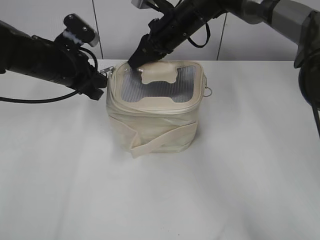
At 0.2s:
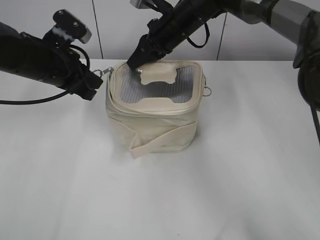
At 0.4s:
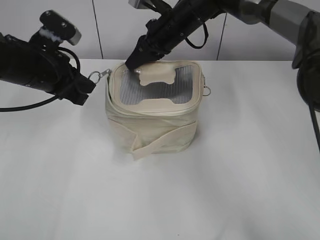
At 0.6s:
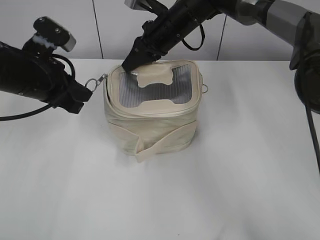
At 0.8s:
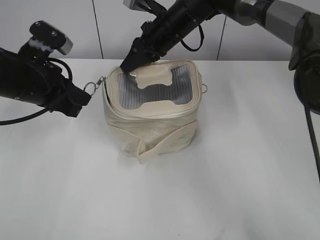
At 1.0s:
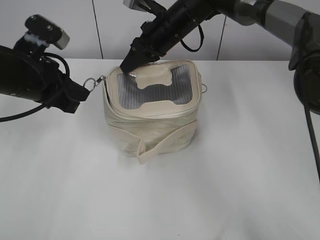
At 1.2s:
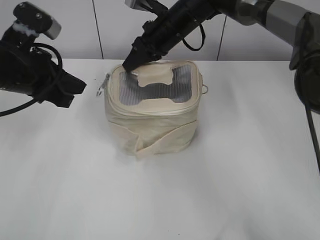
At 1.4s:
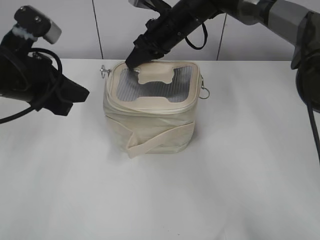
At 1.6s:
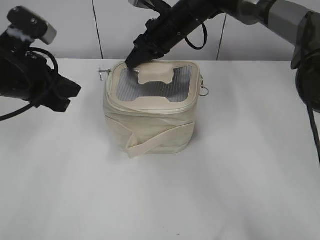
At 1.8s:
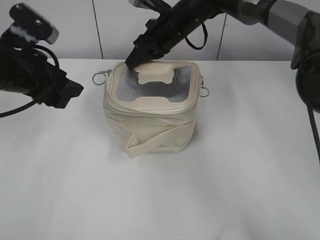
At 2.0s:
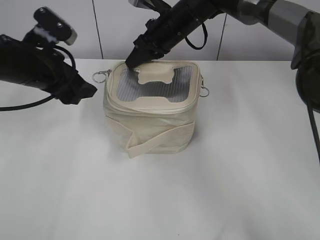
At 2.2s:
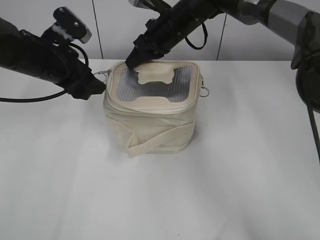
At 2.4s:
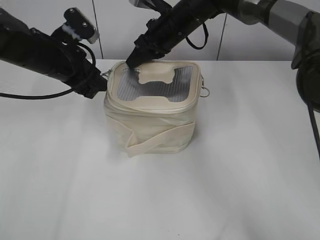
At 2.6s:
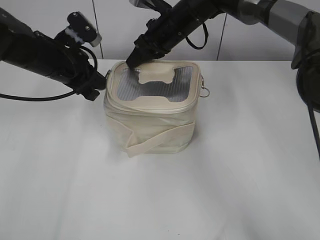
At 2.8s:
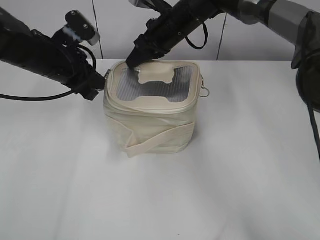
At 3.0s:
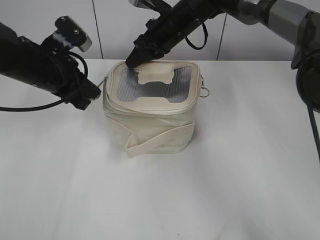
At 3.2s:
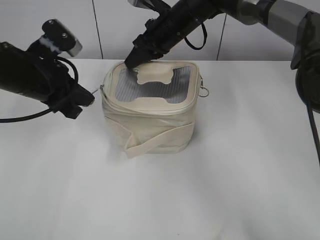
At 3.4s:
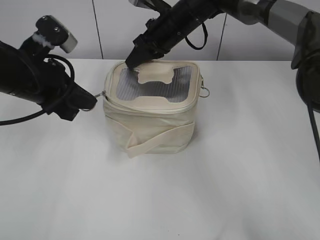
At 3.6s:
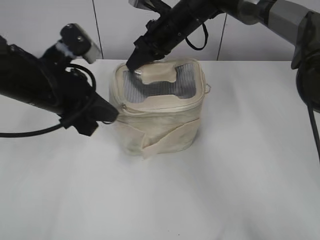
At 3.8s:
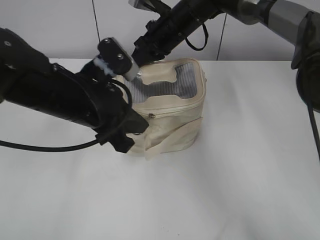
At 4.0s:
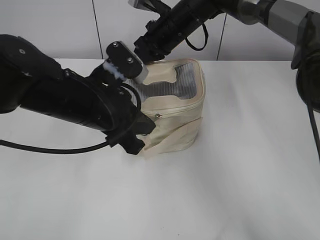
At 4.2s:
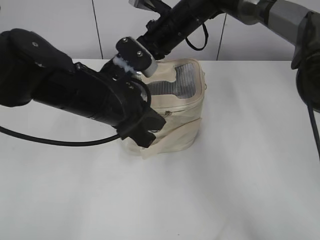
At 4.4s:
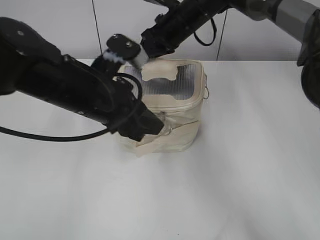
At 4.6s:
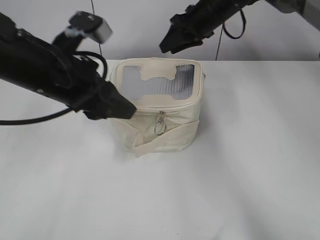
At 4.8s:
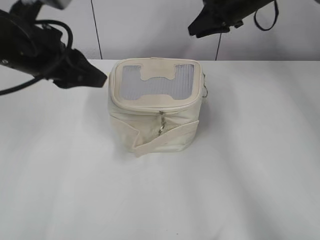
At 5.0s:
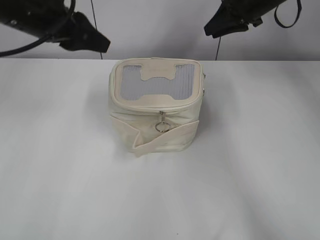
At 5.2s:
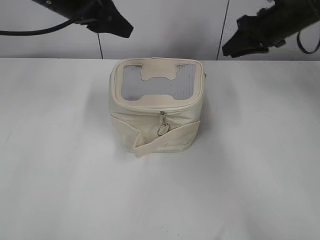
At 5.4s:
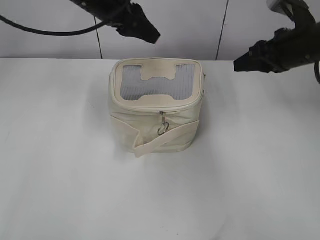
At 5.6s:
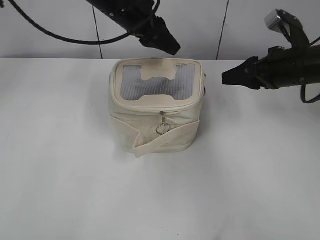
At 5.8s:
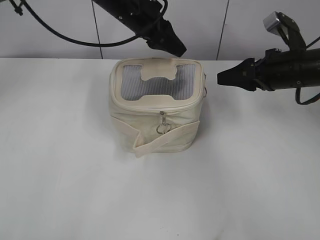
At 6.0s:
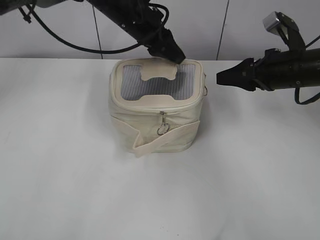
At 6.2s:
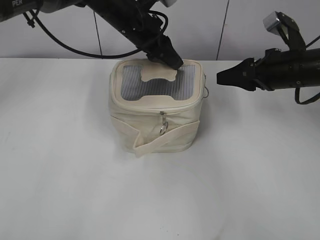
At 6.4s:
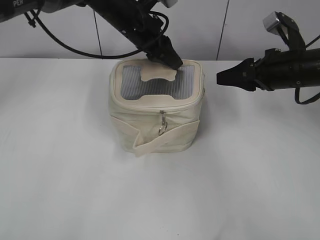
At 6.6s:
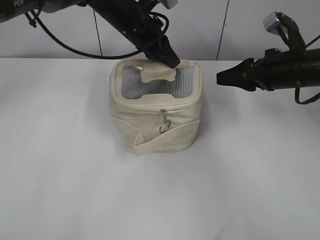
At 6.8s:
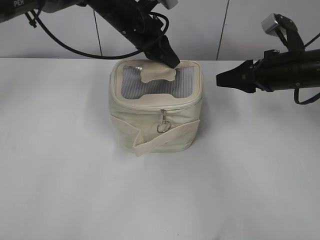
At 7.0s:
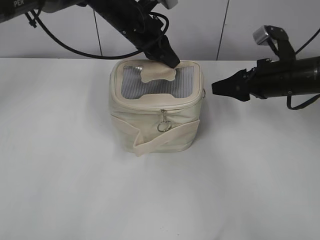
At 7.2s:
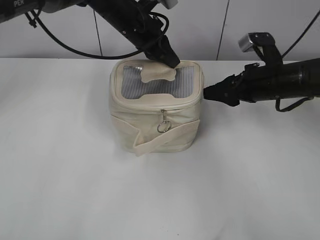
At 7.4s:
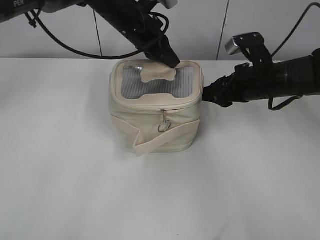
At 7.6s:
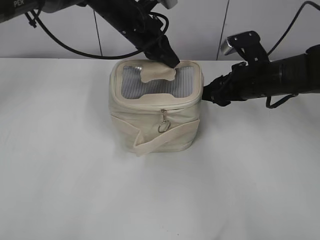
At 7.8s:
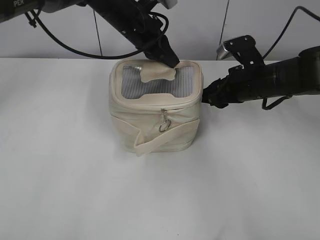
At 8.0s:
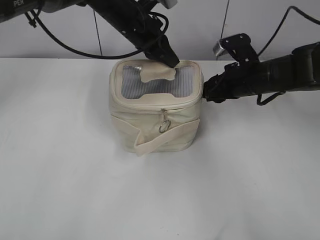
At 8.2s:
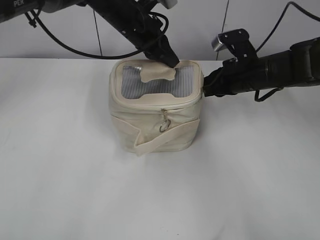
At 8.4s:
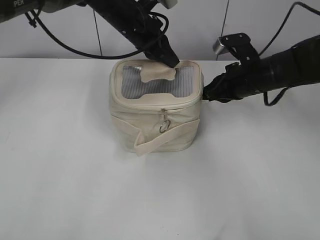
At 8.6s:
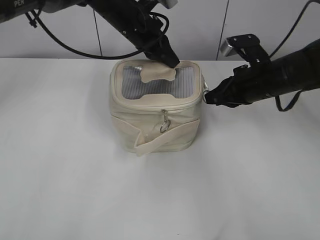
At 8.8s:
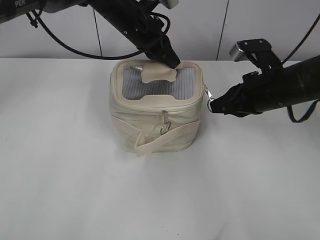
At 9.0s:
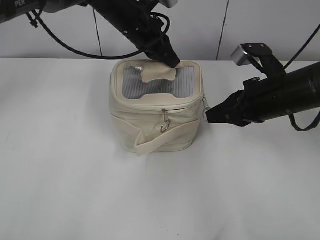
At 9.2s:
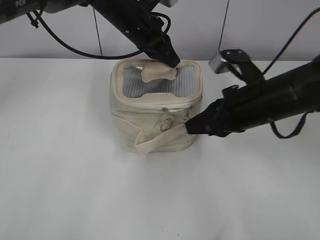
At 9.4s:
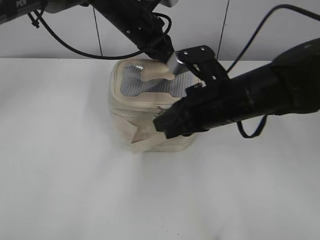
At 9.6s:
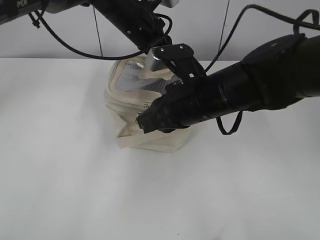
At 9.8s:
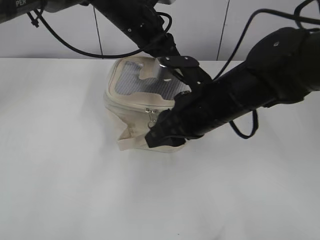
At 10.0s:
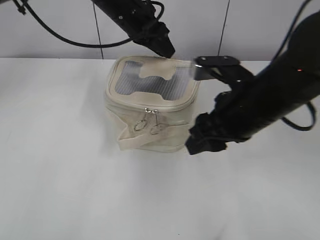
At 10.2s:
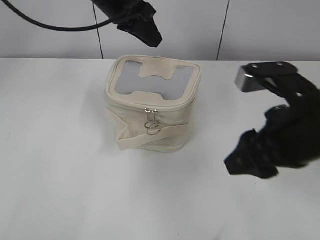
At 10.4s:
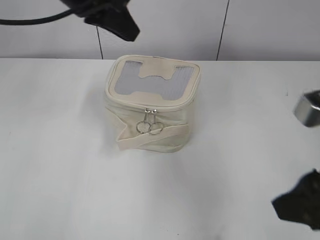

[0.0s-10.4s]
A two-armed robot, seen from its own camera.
Step, 0.0s to 4.2s: Zip up the bag with your left hand.
Step, 4.6s to 9.8s: Zip up the bag with your right hand.
0.0s to 1.4s: The left gripper goes approximately 10 cm backward and upward.
1.4s to 3.0s: The left gripper travels forward by some 5 cm, and opens and closes again.
3.0s to 4.4s: The left gripper heads to the right and backward, covering approximately 15 cm.
4.4s to 6.0s: The right gripper is displaced to the right and backward by about 25 cm, and opens up; the left gripper heads forward, covering roughly 20 cm, and opens.
6.0s to 7.4s: The left gripper closes up.
7.4s to 9.0s: The right gripper travels backward by roughly 5 cm, and closes up.
9.0s to 10.4s: The right gripper heads backward and upward, covering roughly 15 cm, and opens. The left gripper shifts roughly 15 cm upward, backward and to the left.

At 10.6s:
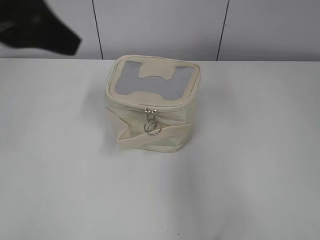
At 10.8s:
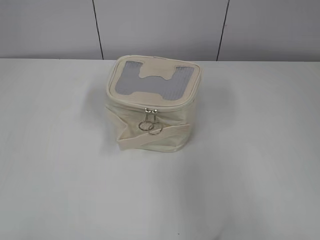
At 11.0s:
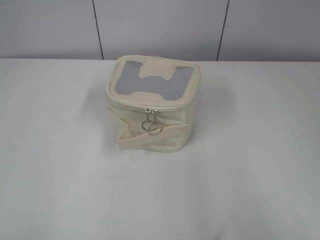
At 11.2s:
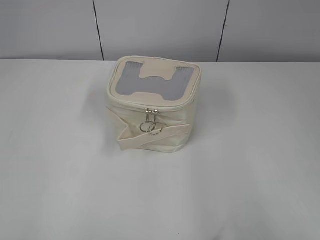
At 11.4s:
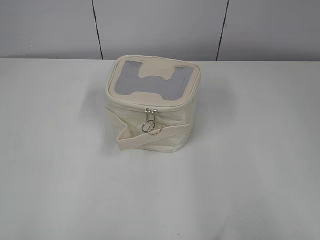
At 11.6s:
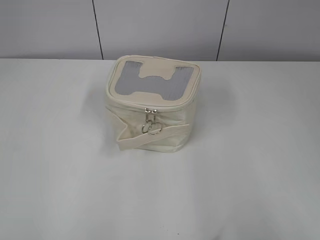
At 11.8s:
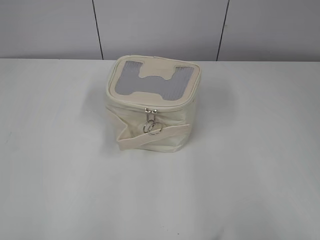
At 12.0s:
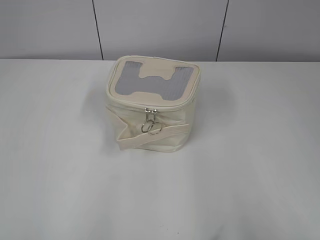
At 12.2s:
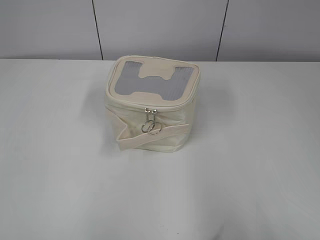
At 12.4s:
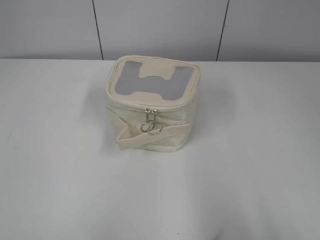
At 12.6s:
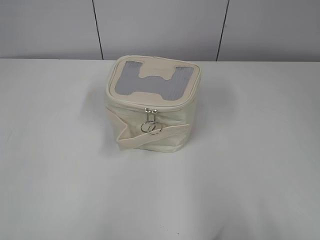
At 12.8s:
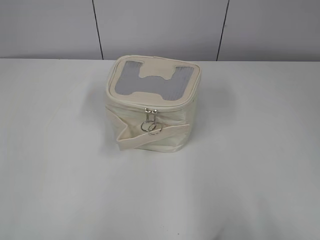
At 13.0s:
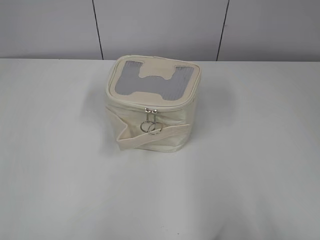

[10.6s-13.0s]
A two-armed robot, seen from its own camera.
10.6s to 11.8s: The right gripper is displaced backward and to the right by roughly 10 cm. The left gripper heads backward and to the left, covering approximately 30 cm, and opens up.

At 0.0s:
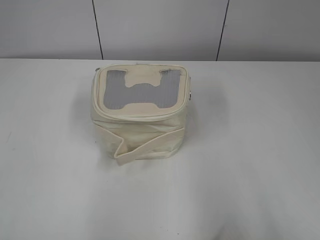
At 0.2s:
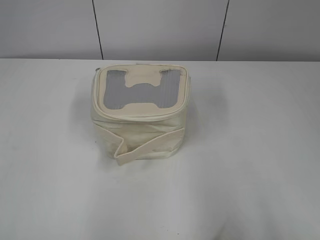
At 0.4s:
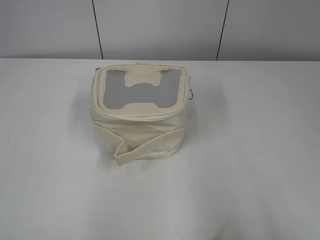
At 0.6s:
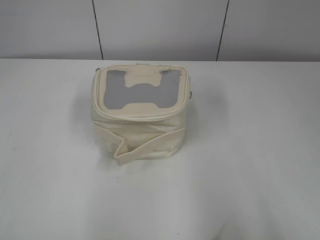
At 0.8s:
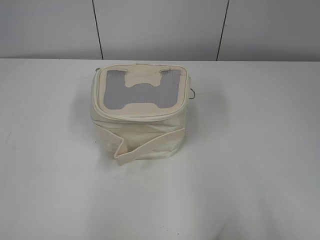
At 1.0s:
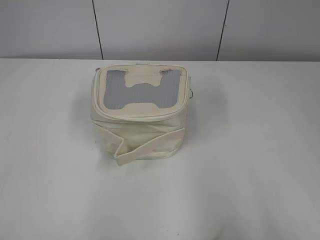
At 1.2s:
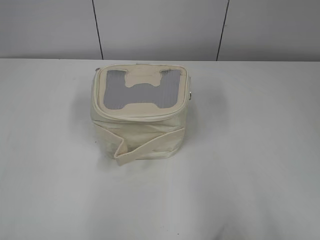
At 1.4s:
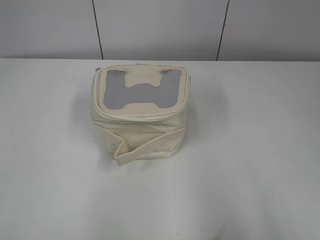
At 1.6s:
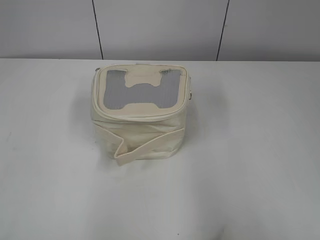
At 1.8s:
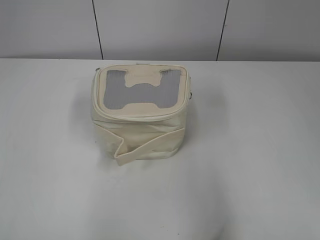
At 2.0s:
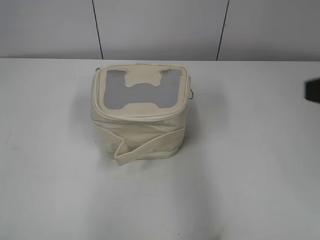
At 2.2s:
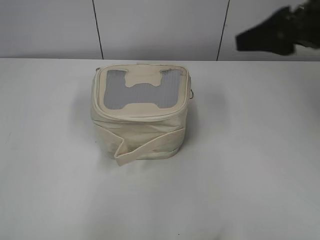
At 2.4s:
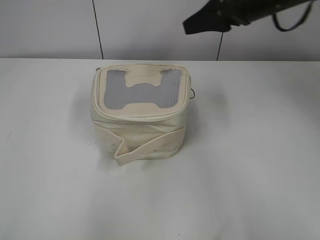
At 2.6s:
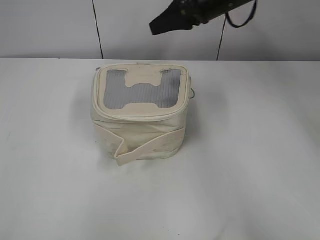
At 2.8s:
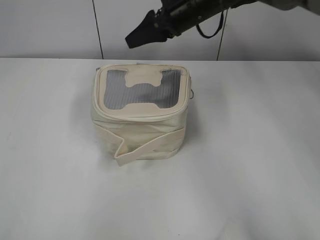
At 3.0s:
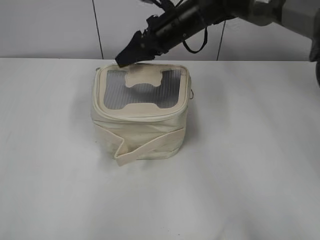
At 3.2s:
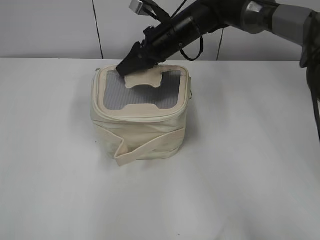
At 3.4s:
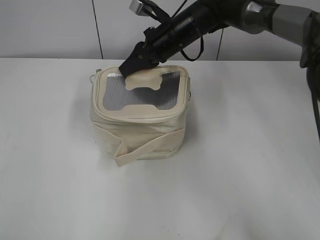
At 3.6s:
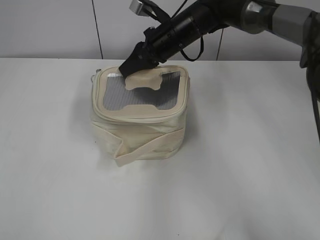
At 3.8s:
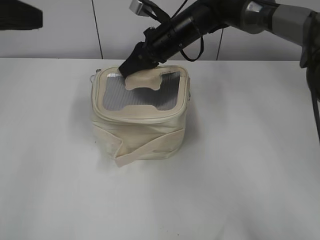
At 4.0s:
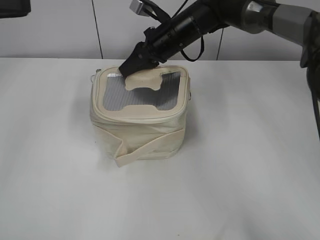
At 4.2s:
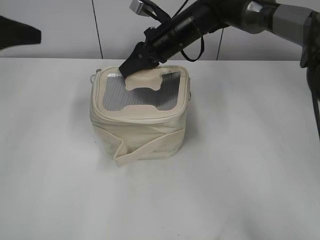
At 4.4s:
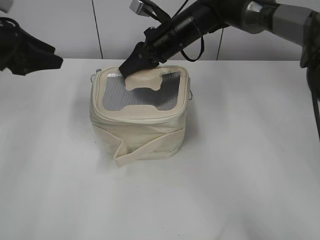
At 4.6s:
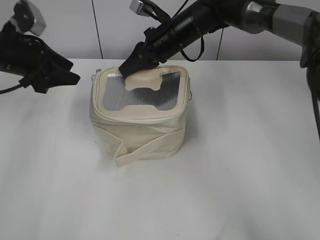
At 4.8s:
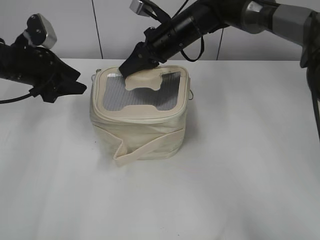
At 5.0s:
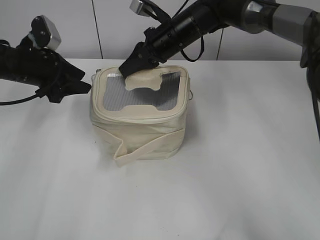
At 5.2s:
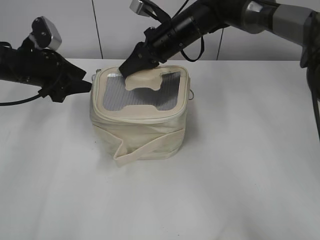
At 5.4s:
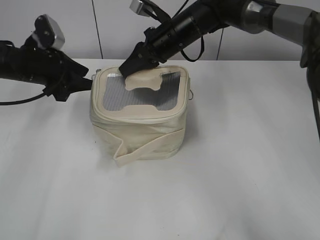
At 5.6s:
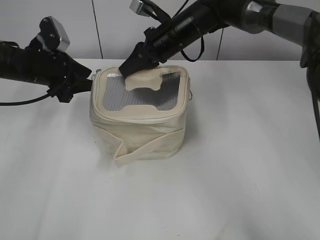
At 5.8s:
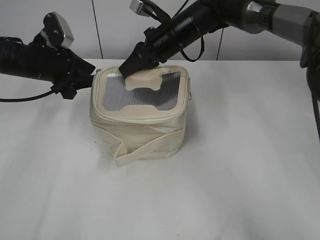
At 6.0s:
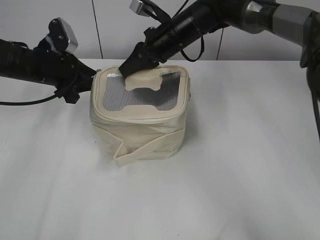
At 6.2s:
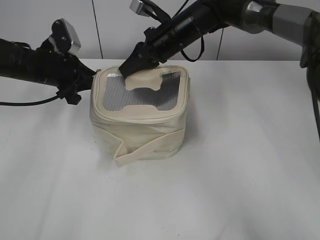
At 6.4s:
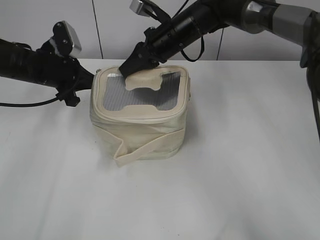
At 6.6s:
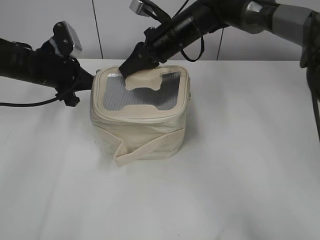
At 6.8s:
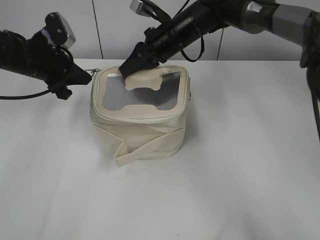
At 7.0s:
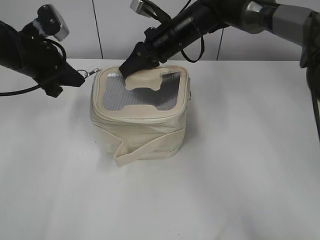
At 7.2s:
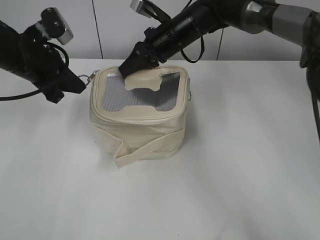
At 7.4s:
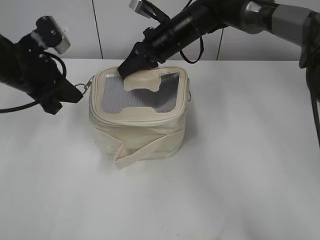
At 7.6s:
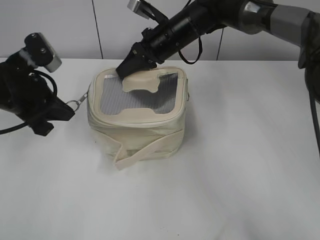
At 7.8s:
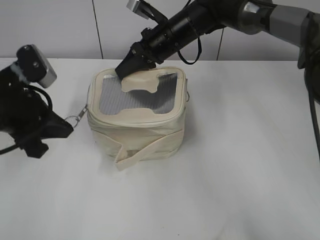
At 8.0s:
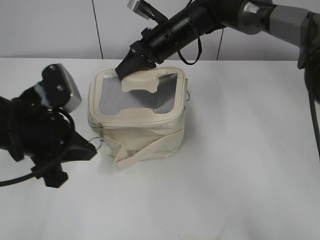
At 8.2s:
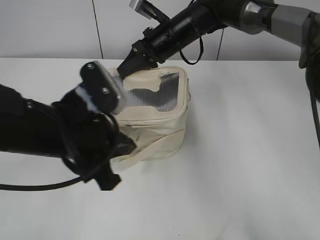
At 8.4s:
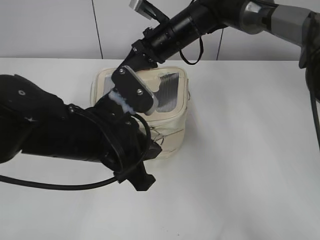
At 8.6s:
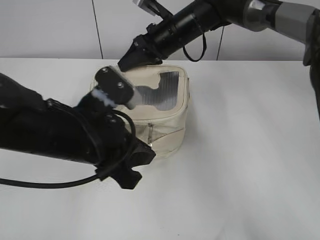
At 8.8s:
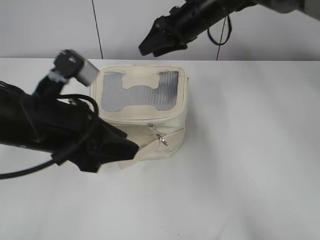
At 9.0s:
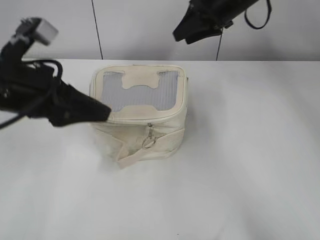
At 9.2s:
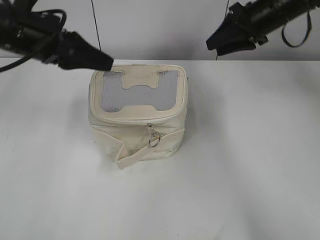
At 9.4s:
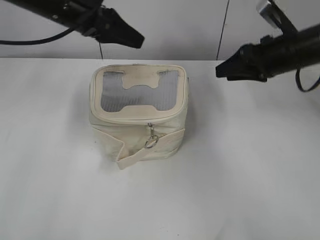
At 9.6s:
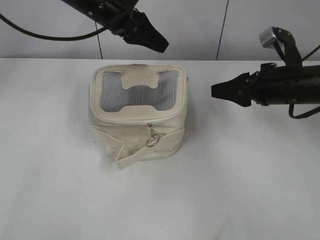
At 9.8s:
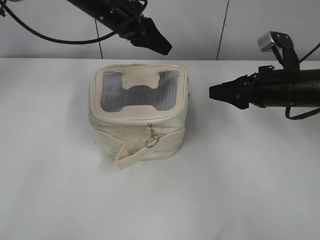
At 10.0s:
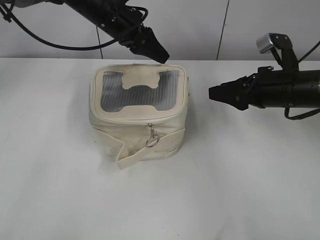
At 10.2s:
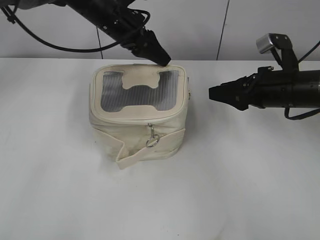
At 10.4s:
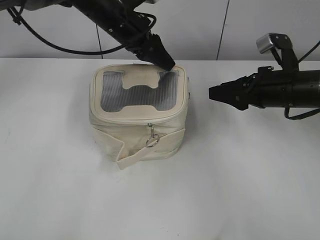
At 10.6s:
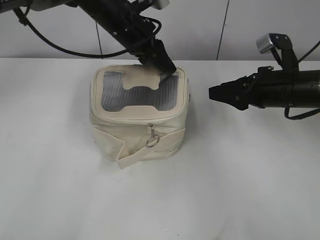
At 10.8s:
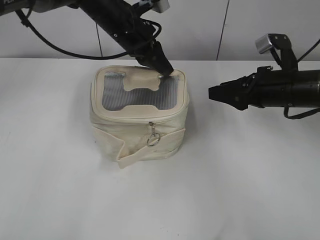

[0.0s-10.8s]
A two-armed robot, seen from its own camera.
Step, 0.0s to 8.6s: Zip up the bag with your left hand.
1.6s to 3.0s: The right gripper is displaced forward and to the left by roughly 50 cm.
3.0s to 4.6s: The right gripper closes. The left gripper is displaced forward by roughly 40 cm, and opens its fingers.
4.6s to 6.2s: The left gripper shifts by roughly 5 cm, and closes up.
6.2s to 7.8s: The left gripper goes about 15 cm backward, and closes up.
7.8s to 9.2s: The right gripper is displaced to the right by roughly 20 cm, and opens up. Meanwhile the left gripper is displaced upward and forward by roughly 10 cm, moves roughly 15 cm to the right and comes back, and opens its fingers.
9.2s to 10.8s: The left gripper goes approximately 20 cm to the right and forward, and closes up. Meanwhile the right gripper is displaced backward and downward by approximately 15 cm.
